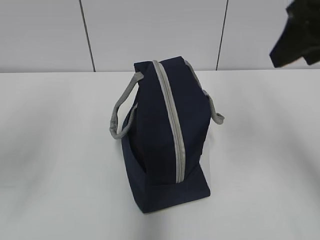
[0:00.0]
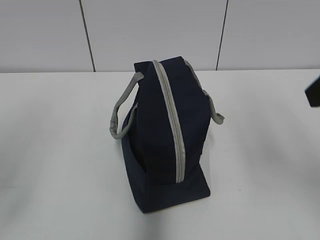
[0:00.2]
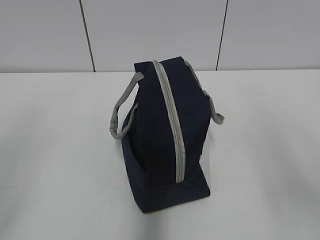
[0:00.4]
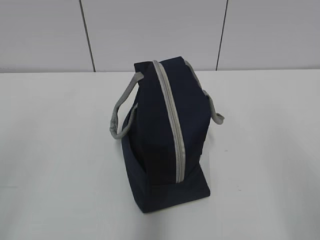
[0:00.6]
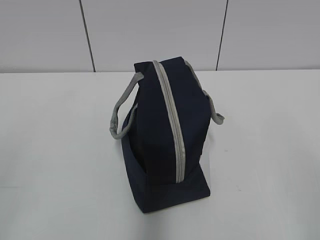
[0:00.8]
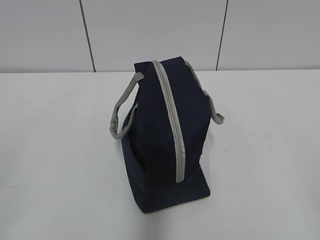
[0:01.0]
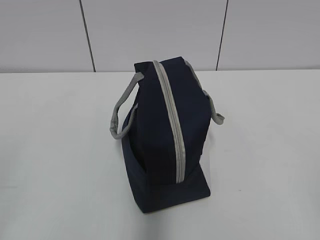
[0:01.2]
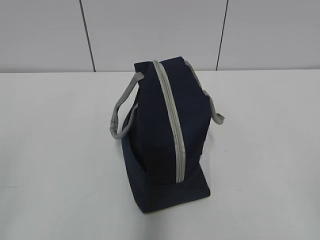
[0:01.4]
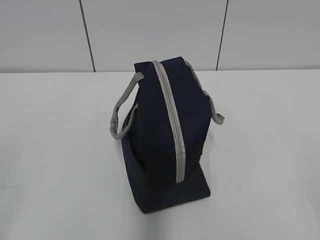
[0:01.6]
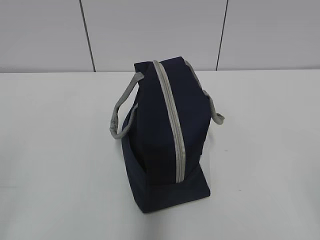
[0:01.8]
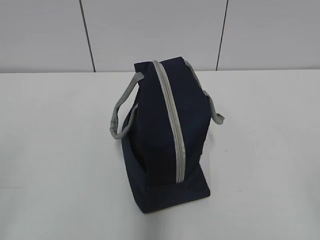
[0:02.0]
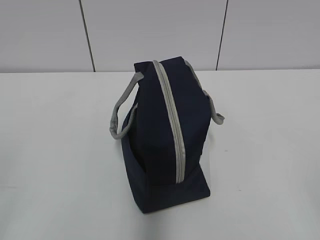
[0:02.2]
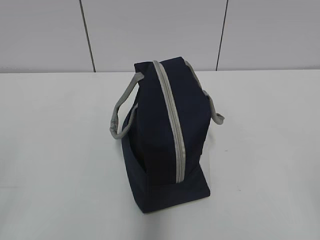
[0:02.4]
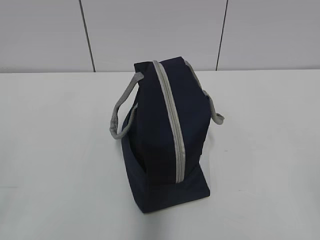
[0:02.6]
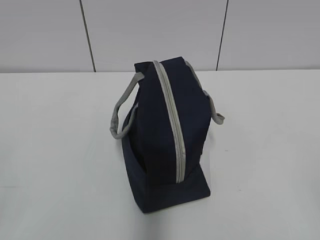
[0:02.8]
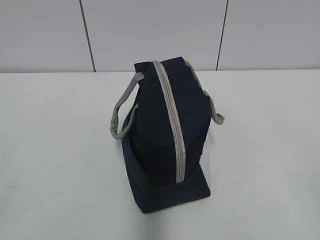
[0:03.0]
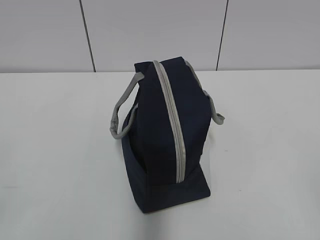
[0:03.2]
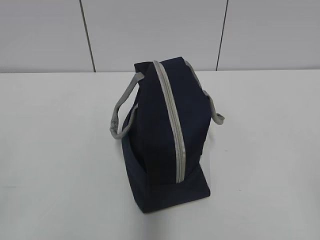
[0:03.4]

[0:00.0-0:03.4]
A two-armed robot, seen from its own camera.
0:00.0 to 0:01.6: The right gripper is displaced backward and downward by some 30 cm.
